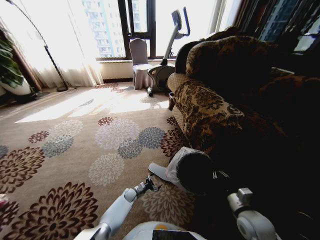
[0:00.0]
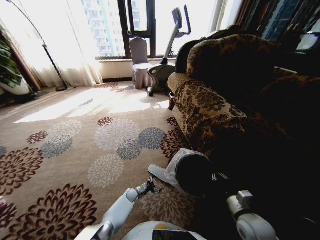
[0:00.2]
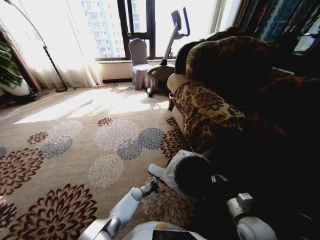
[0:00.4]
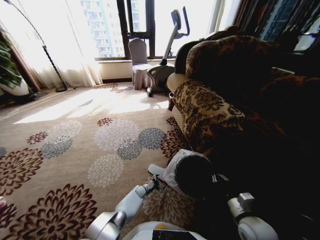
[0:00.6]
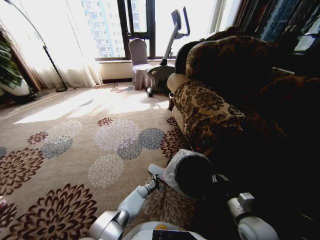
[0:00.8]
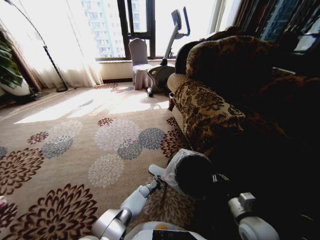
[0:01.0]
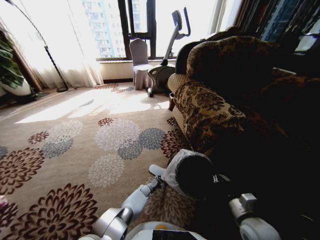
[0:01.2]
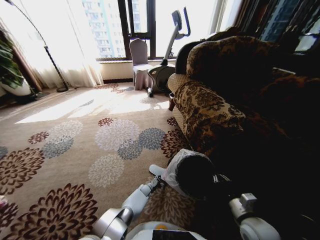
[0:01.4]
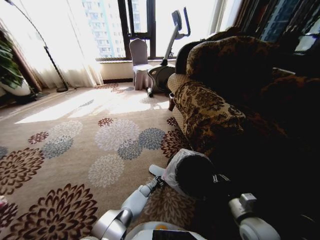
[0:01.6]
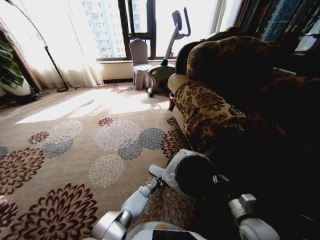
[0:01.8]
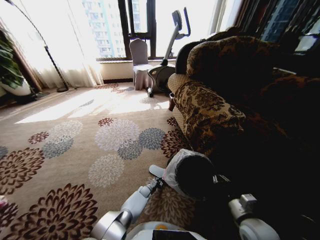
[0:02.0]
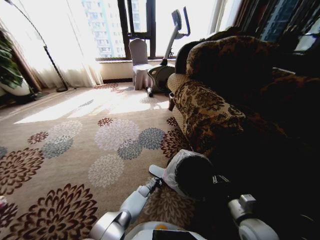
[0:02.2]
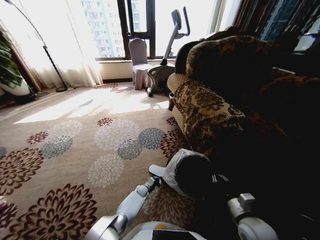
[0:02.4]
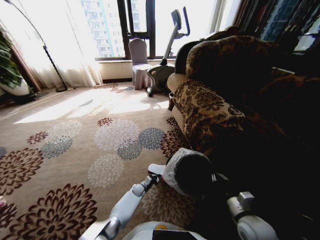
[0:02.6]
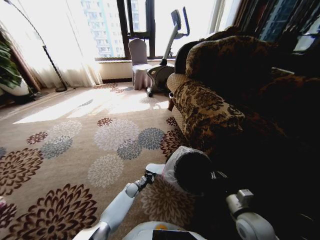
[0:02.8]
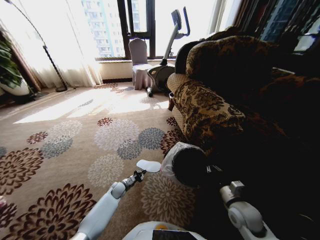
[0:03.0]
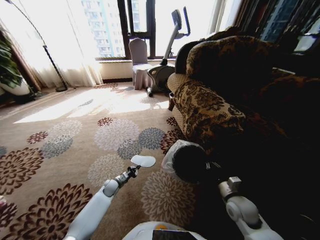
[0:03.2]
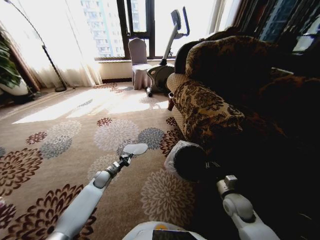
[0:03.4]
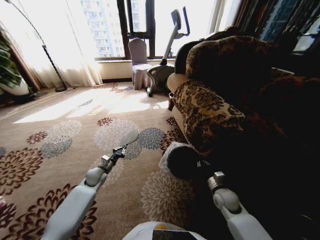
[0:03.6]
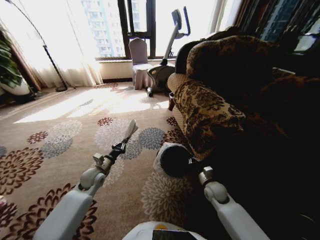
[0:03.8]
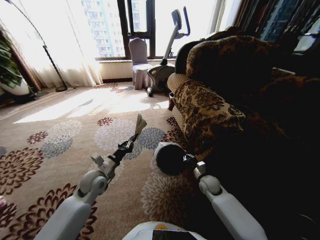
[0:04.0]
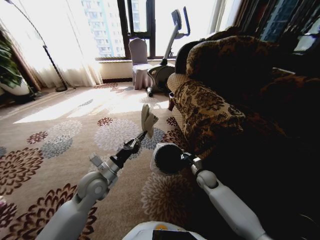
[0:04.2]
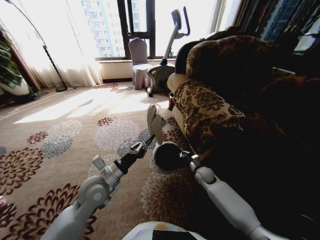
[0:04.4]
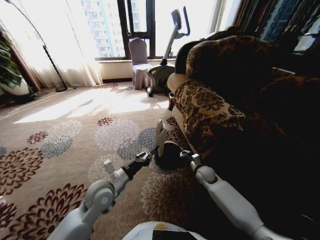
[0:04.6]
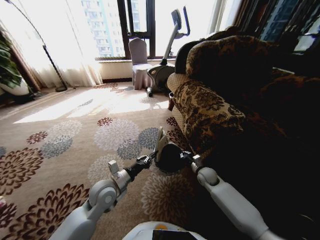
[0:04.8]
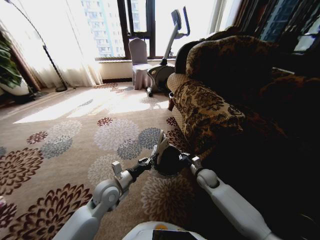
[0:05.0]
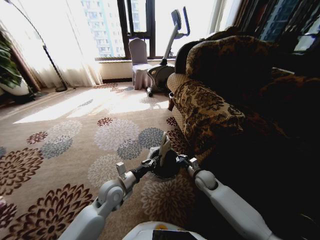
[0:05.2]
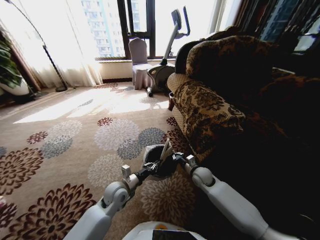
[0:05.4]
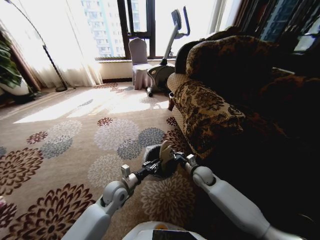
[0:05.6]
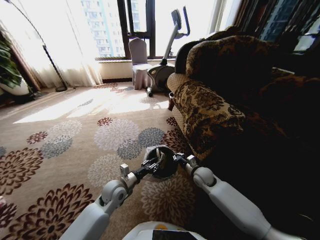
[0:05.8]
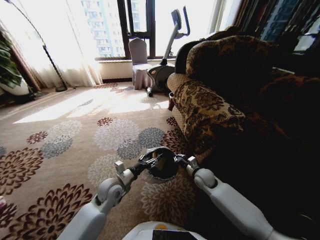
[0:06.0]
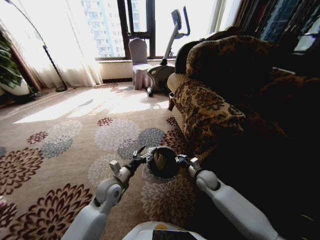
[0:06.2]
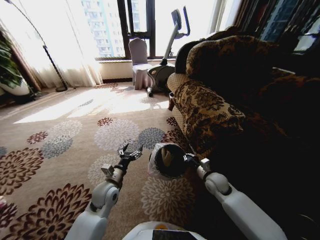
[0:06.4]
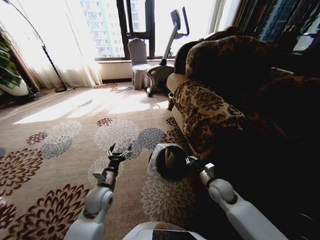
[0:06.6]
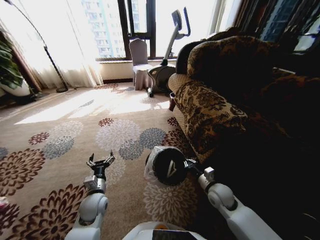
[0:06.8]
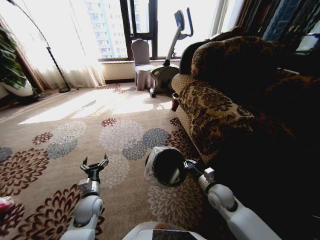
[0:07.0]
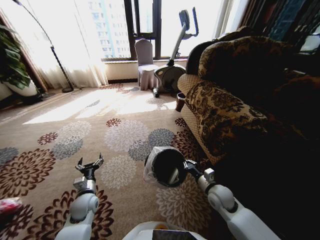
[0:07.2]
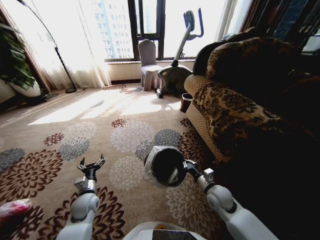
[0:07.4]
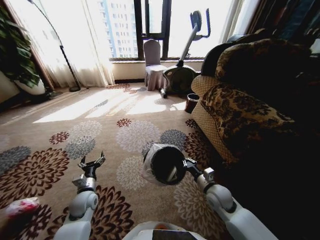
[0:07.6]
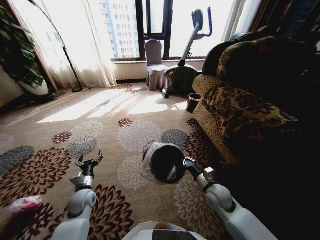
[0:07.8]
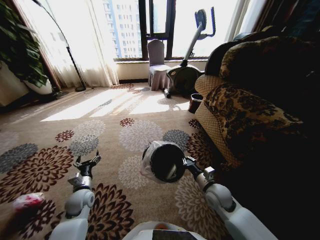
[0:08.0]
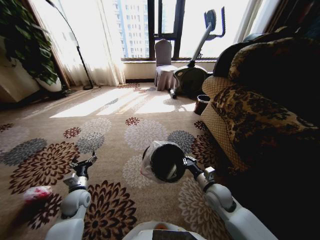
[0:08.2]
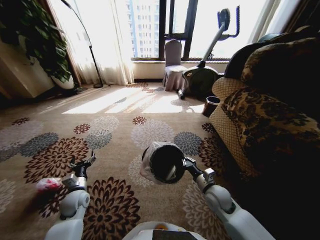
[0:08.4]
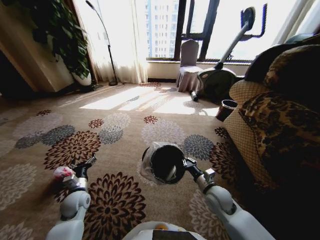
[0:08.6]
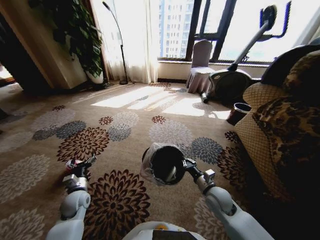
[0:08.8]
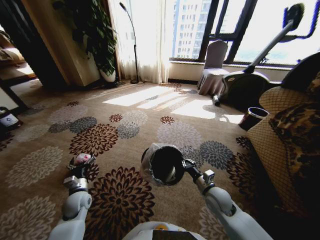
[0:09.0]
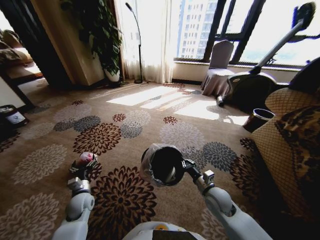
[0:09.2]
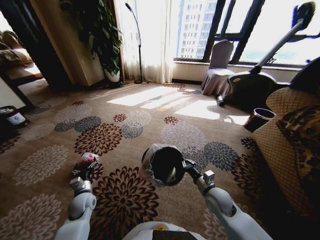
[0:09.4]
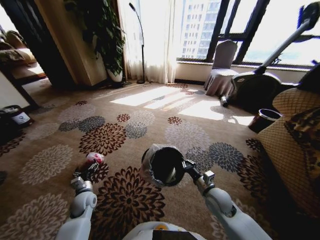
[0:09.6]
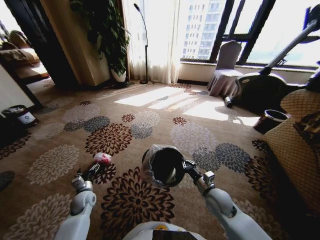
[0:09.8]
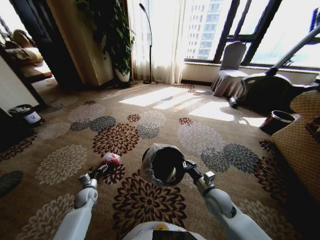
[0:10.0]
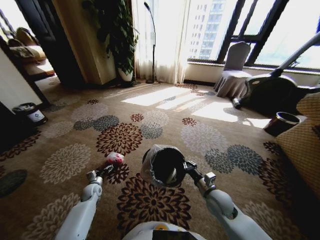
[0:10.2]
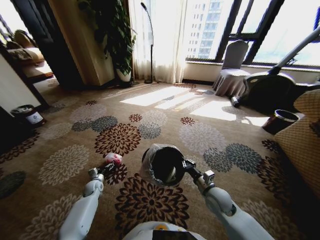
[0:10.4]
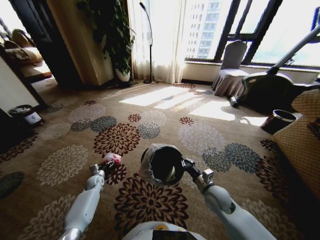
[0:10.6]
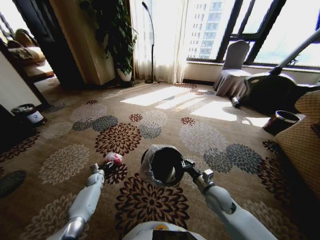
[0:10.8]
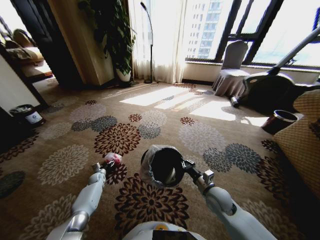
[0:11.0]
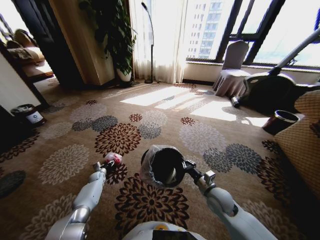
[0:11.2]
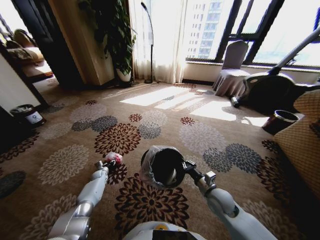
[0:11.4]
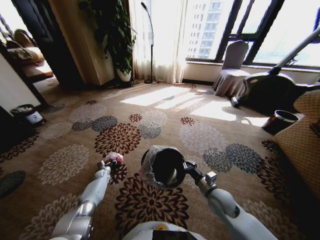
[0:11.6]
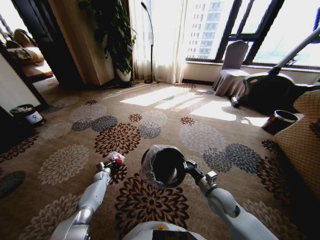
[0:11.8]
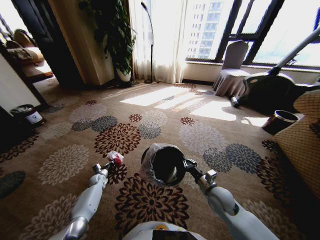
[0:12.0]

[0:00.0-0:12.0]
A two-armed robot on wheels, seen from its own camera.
Task of the whole recording: Pick up the trash from the ground and place it into the trash bin.
0:00.0 to 0:01.6: The left gripper moves to the right, approximately 10 cm, and closes its fingers.
0:01.6 to 0:03.0: The left gripper is displaced to the left and upward by roughly 15 cm, and closes.
0:03.0 to 0:04.4: The left gripper heads upward, covering some 30 cm. Meanwhile the right gripper travels forward and downward by some 20 cm.
0:04.4 to 0:06.0: The left gripper goes approximately 10 cm downward, and opens its fingers, while the right gripper moves roughly 5 cm.
0:06.0 to 0:07.6: The right gripper moves backward, approximately 10 cm. Meanwhile the left gripper travels to the left by approximately 10 cm, and opens its fingers.
0:09.0 to 0:10.4: The left gripper is displaced downward and forward by approximately 15 cm.
0:10.4 to 0:12.0: The left gripper closes its fingers.

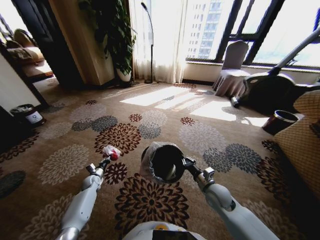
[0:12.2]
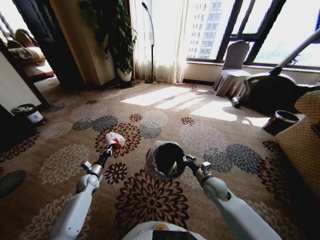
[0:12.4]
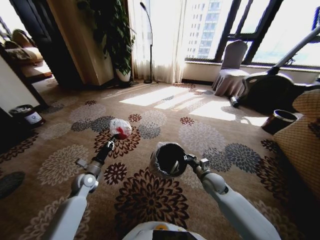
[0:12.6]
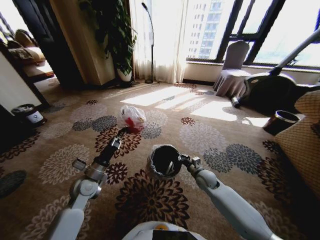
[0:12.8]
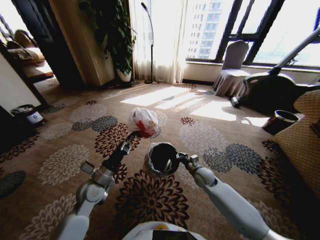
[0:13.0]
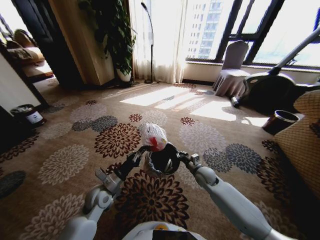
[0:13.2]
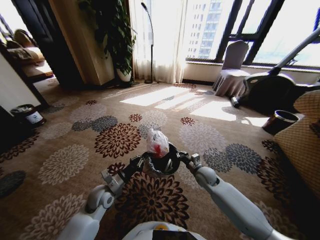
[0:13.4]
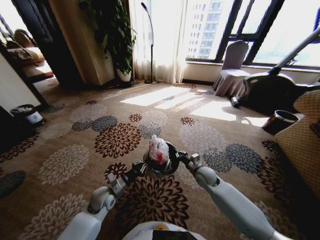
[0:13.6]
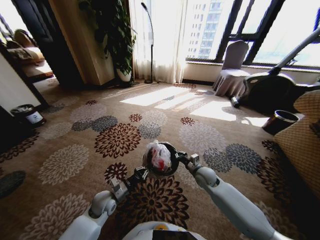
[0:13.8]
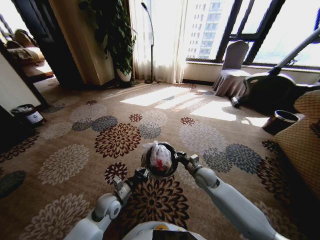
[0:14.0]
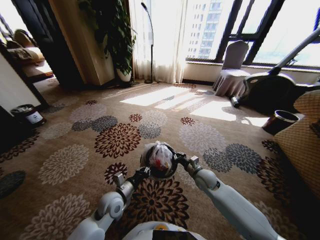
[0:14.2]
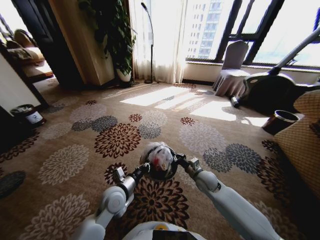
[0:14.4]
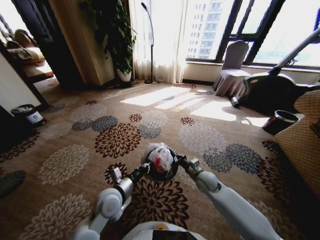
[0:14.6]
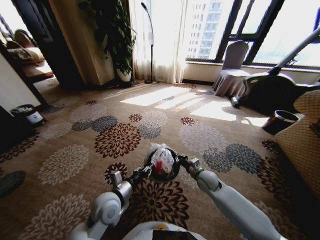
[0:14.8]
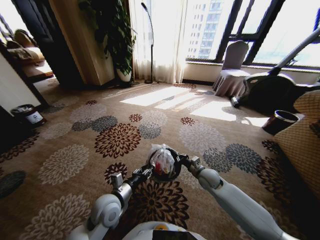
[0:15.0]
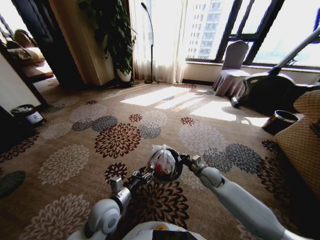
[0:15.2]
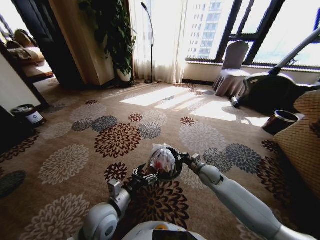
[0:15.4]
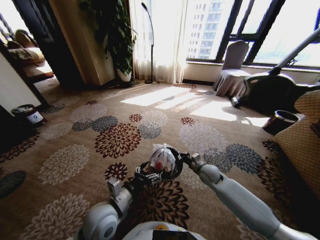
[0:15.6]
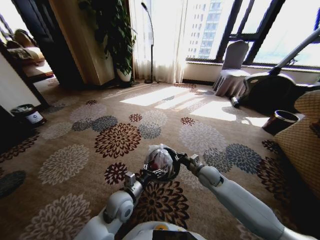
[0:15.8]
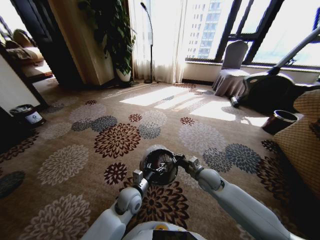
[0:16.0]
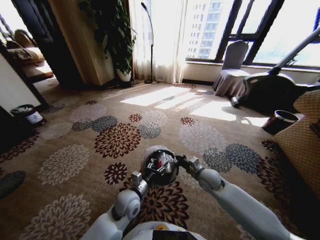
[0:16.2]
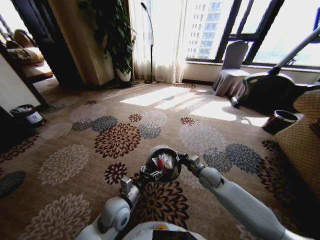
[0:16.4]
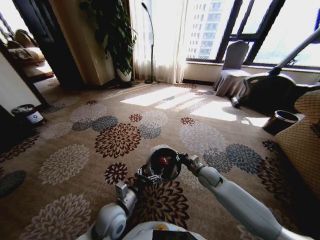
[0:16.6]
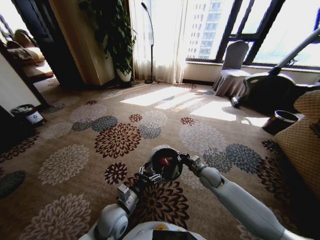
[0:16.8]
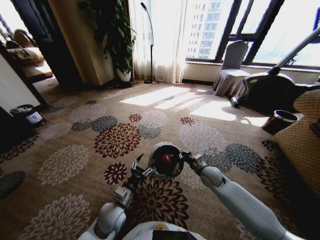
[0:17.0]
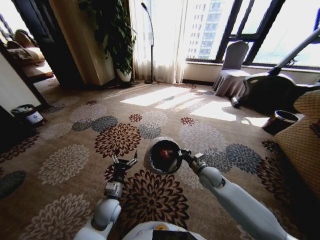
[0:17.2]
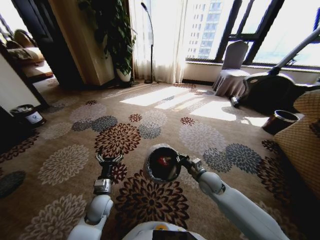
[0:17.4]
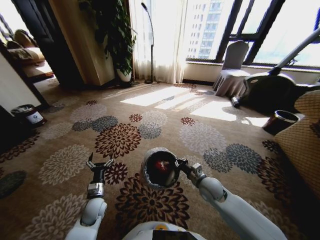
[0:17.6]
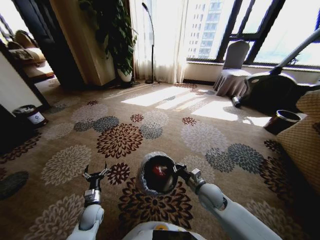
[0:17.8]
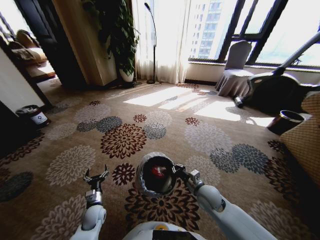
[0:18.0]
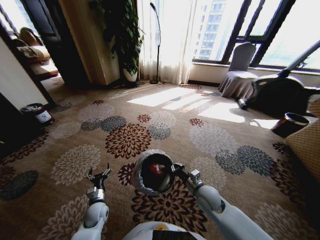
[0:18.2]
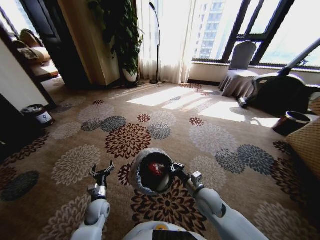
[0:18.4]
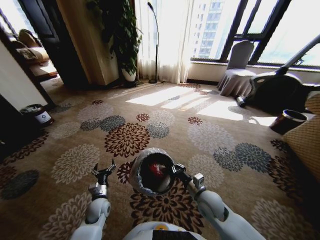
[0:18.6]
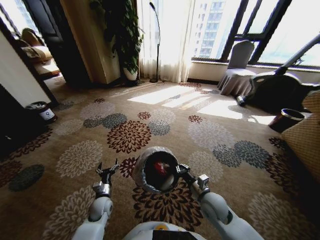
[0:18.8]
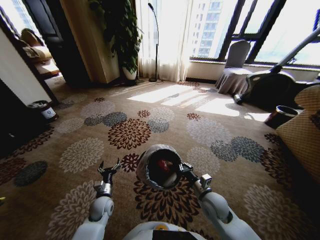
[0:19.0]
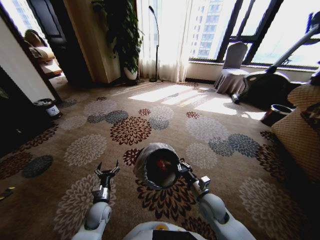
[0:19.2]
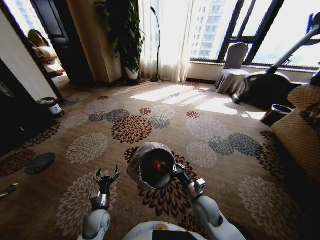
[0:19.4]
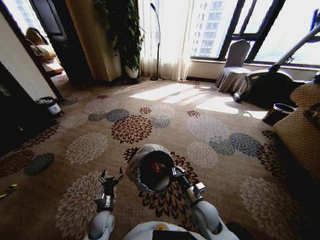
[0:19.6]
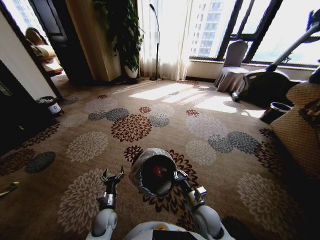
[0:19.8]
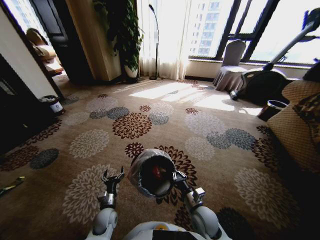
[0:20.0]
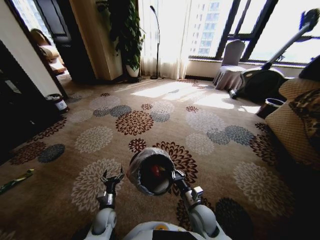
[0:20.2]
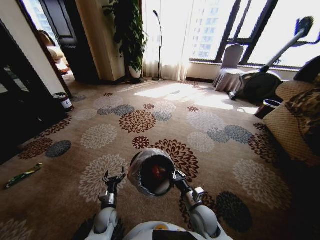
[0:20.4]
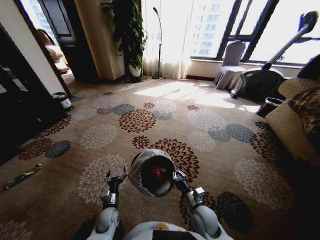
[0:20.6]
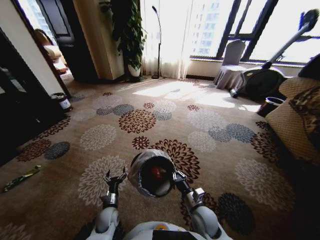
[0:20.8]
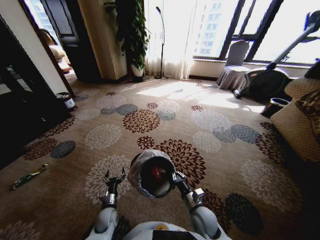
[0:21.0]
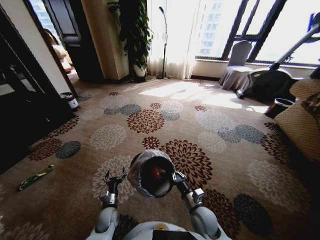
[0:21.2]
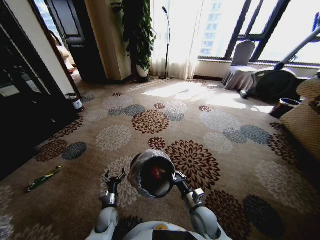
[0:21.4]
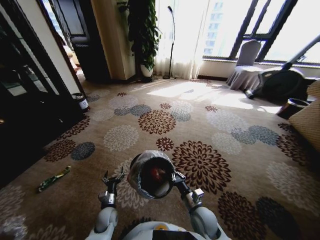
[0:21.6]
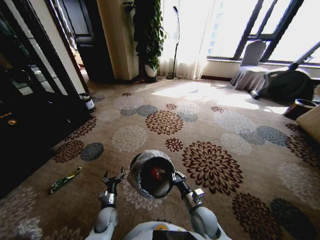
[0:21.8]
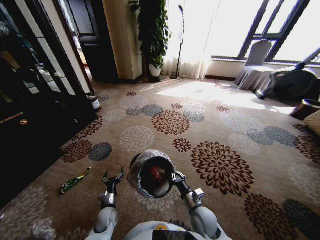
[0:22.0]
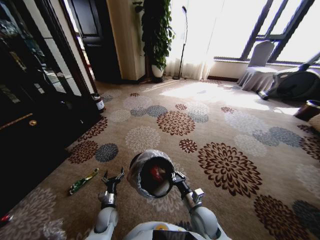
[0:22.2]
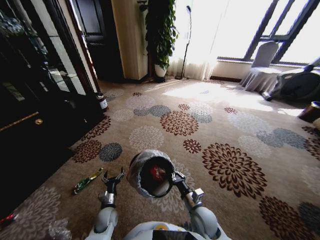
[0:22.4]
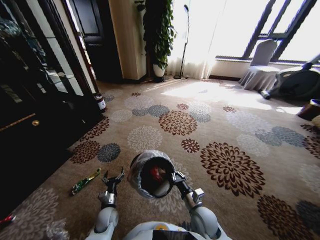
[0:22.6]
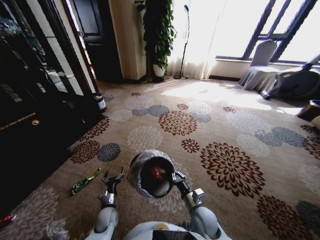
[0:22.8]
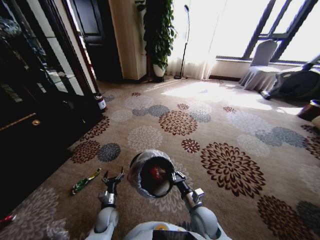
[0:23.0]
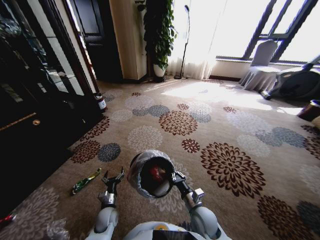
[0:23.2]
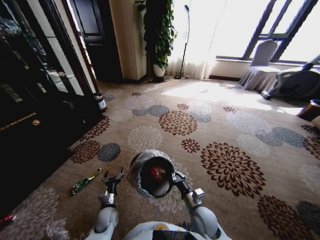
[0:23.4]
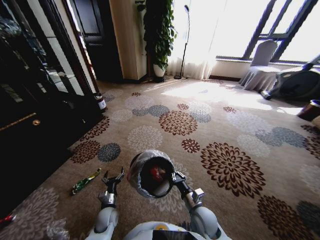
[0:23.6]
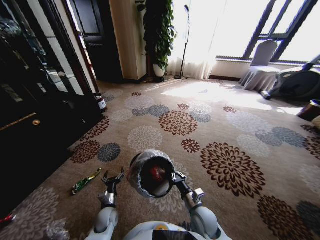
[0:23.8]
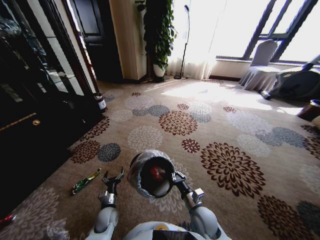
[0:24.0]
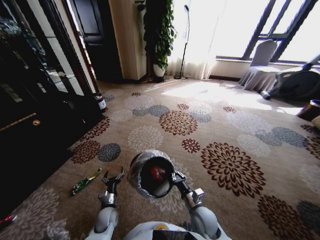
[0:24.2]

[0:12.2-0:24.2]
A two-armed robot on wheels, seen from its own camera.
Task of the whole recording: Pick up the trash from the ground and place it into the trash bin.
0:12.2 to 0:13.8: The left gripper travels to the right, upward and backward by about 25 cm; the right gripper heads forward, covering roughly 10 cm.
0:13.8 to 0:15.2: The left gripper shifts approximately 10 cm upward, to the right and backward, and opens up.
0:15.2 to 0:16.6: The left gripper moves some 5 cm downward and comes back.
0:16.6 to 0:18.2: The right gripper travels backward by approximately 10 cm; the left gripper shifts some 20 cm downward and to the left.
0:18.2 to 0:19.8: The left gripper heads to the right, covering about 5 cm. Meanwhile the right gripper heads backward, covering approximately 5 cm.
0:22.6 to 0:24.2: The two grippers keep their place.
